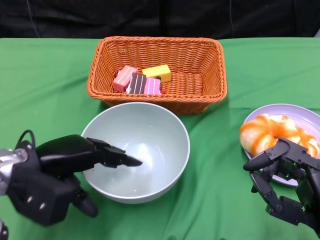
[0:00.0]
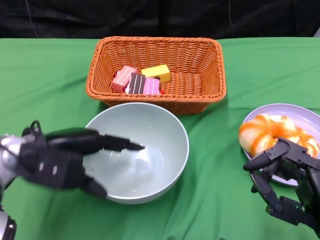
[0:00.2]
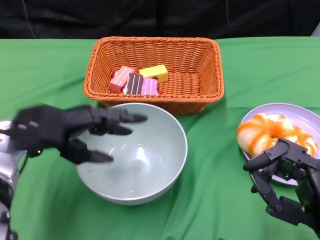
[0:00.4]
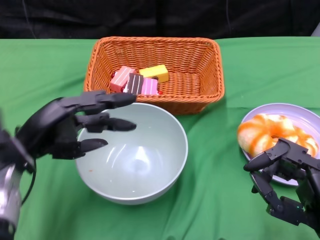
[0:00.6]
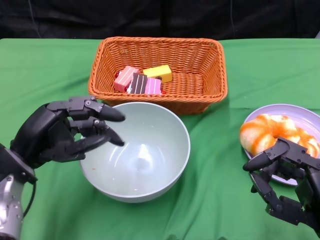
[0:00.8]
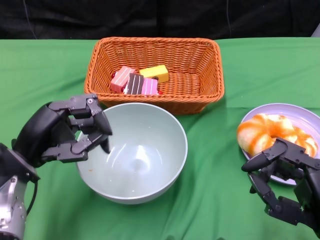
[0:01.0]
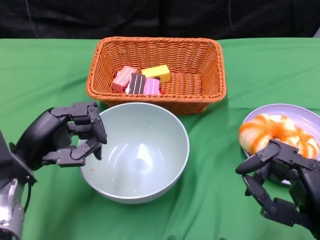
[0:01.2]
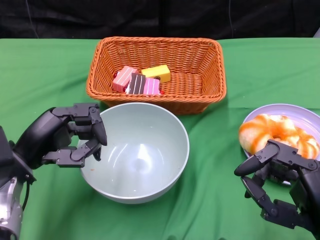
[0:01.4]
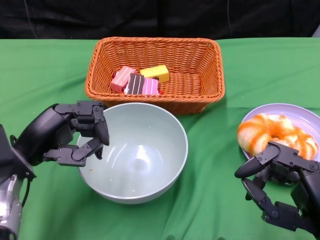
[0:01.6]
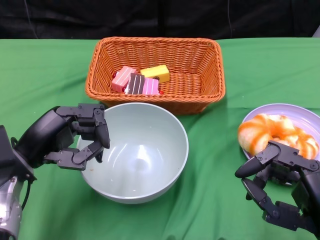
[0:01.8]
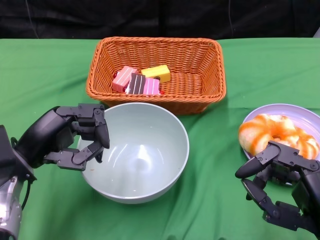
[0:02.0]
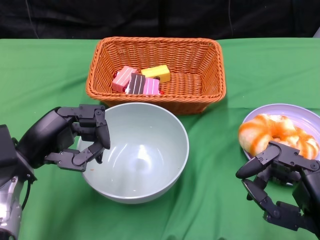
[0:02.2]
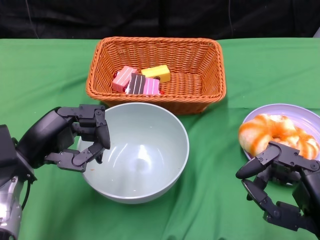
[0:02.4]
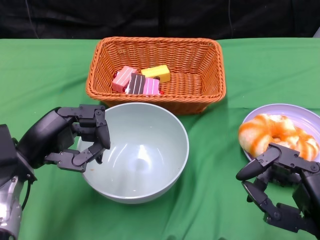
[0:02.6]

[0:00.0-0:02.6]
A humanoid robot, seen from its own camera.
0:01.2 to 0:02.6: There are only small adjustments of the hands.

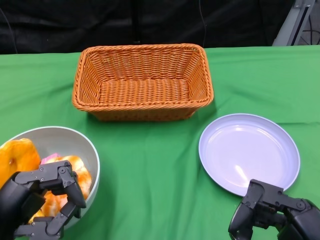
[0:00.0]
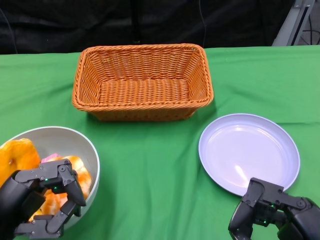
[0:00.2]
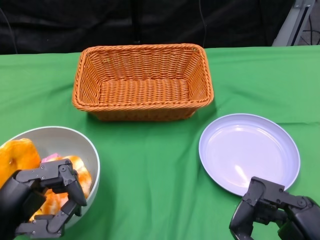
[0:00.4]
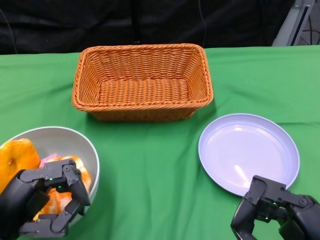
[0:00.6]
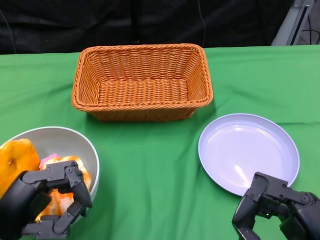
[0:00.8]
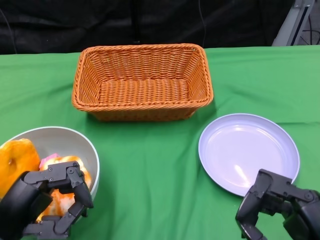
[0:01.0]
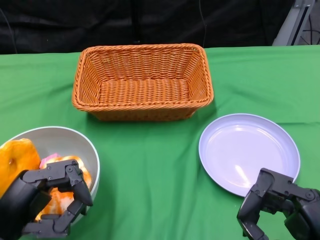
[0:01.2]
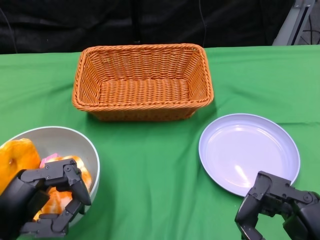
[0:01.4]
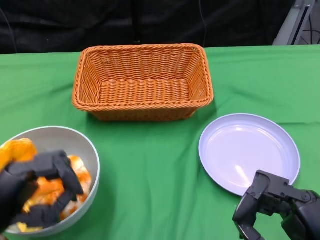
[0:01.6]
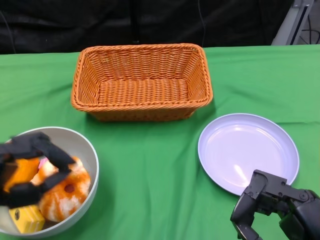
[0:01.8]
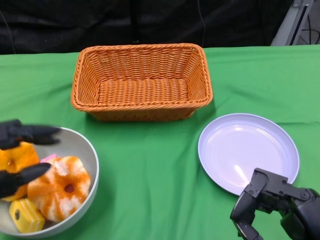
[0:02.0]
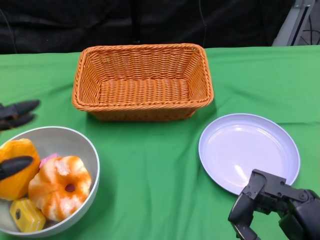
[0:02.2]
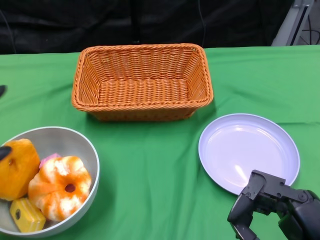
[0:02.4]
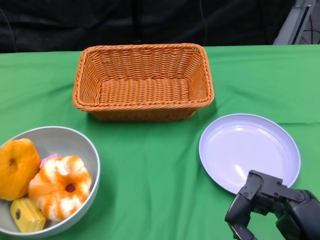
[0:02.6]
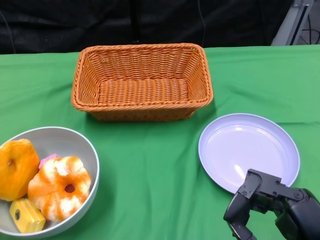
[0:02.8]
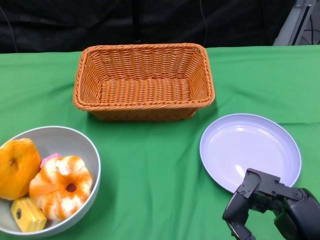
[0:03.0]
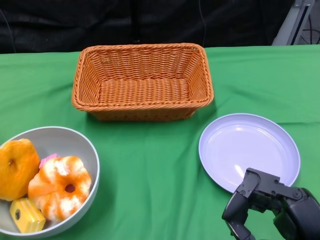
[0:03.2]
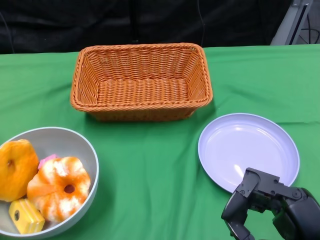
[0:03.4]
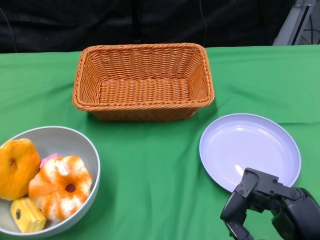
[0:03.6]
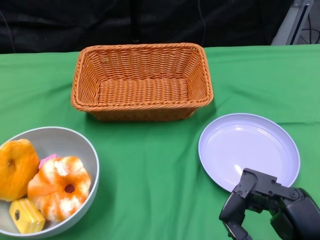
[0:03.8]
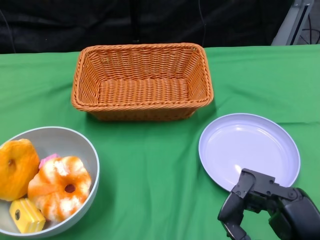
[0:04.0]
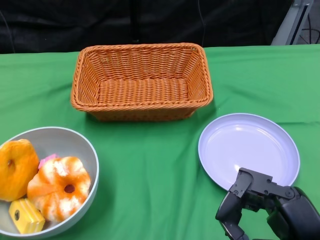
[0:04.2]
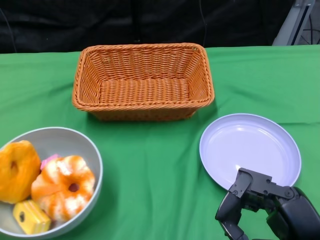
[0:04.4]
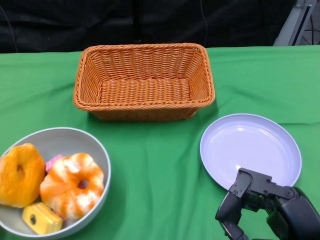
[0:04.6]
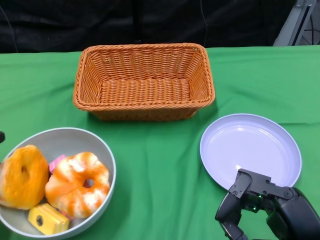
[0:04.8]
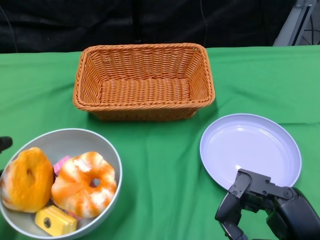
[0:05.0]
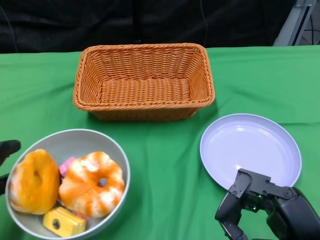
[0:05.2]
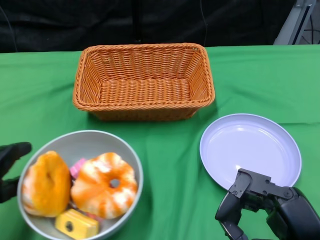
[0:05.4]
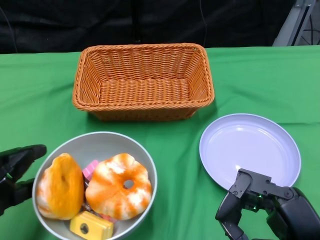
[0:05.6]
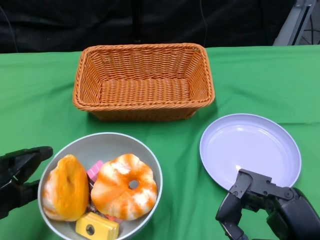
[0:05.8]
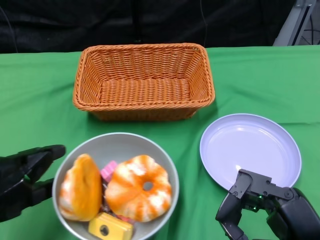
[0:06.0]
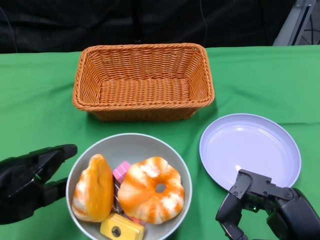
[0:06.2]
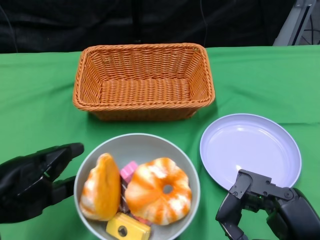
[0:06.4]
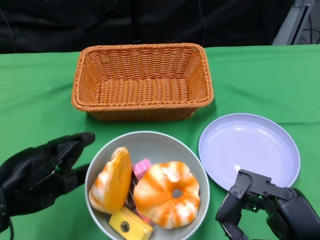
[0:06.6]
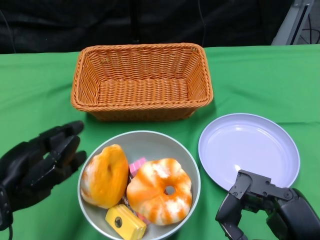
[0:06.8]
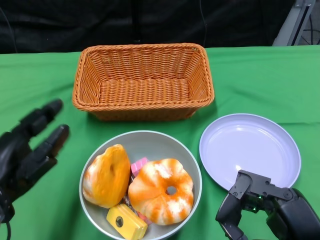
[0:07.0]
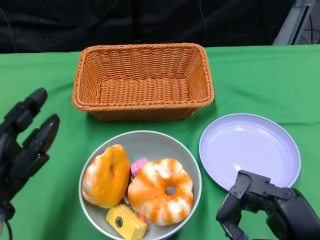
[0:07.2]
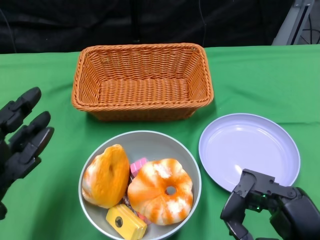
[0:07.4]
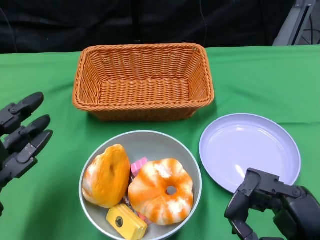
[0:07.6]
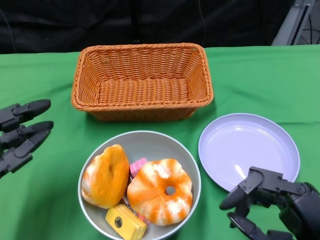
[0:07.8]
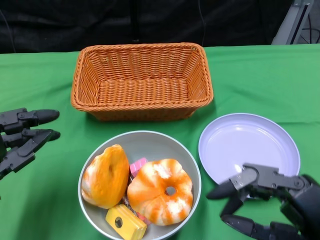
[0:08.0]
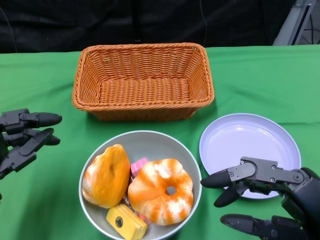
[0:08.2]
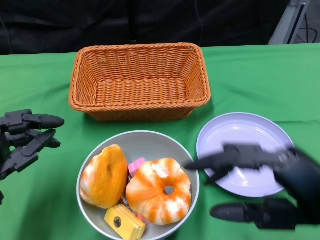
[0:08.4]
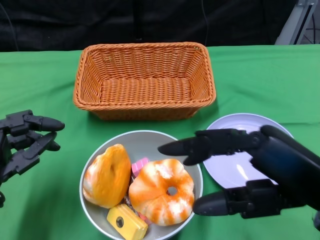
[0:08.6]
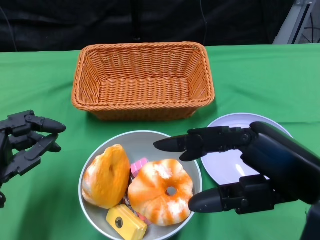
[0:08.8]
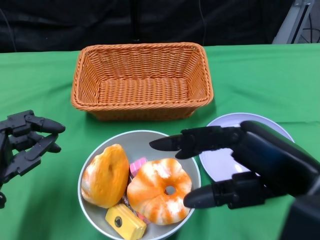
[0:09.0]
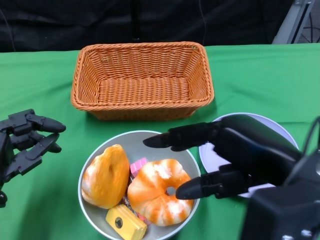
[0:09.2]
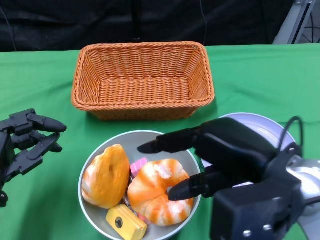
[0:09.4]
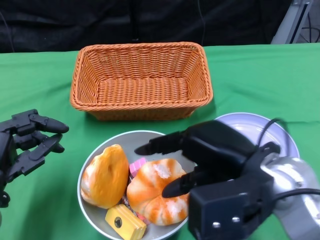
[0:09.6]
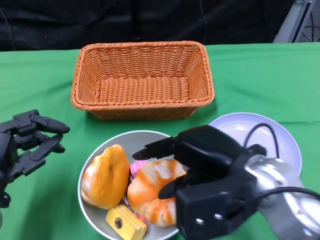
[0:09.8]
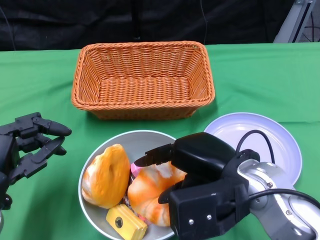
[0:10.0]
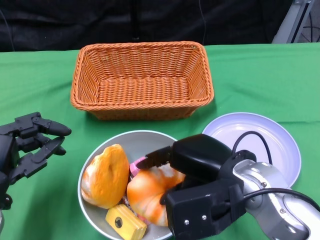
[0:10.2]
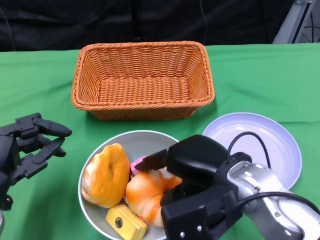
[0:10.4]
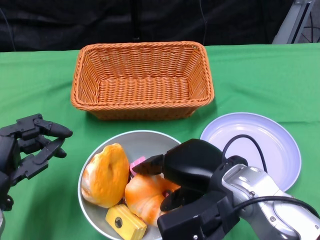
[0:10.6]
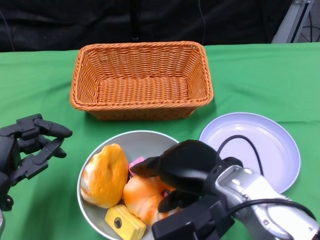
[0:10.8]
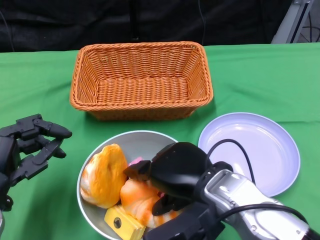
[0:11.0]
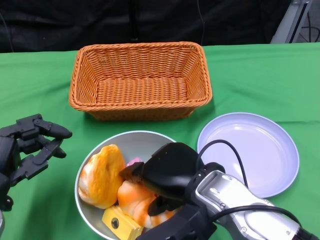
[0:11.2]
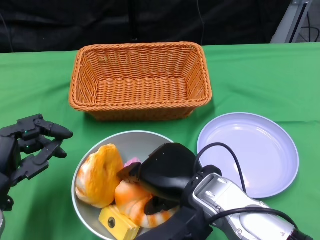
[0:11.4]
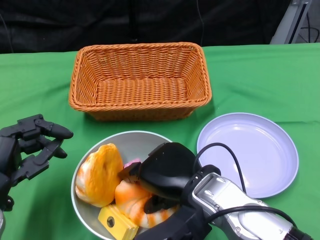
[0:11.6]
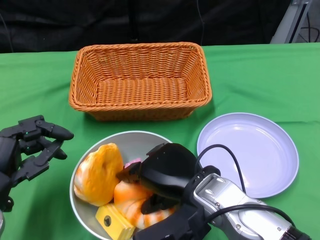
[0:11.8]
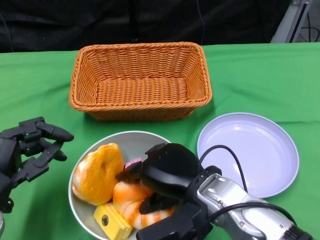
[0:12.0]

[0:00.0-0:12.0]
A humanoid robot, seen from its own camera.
Step, 0:00.0 to 0:07.2: Push the bowl to the center of the table using the left gripper.
0:01.6 to 0:03.0: The left hand travels to the left by about 10 cm.
0:04.4 to 0:06.0: The left hand heads to the right, covering about 5 cm.
0:07.6 to 0:09.0: The right hand moves upward, approximately 10 cm.
0:09.0 to 0:10.4: The right hand goes roughly 15 cm downward, to the left and forward.
0:10.4 to 0:12.0: The right hand moves some 5 cm.

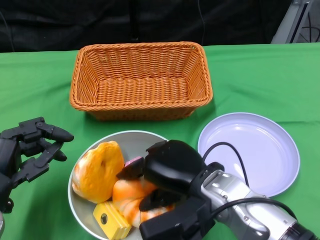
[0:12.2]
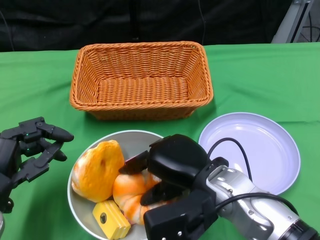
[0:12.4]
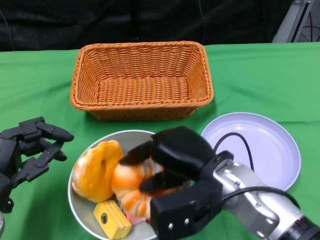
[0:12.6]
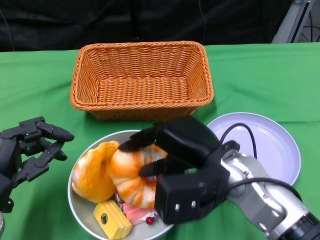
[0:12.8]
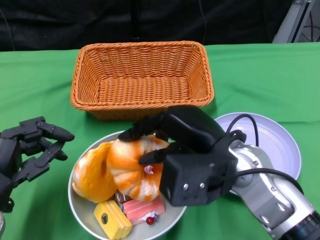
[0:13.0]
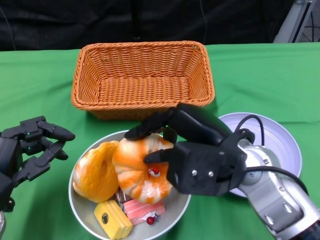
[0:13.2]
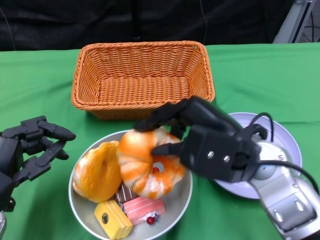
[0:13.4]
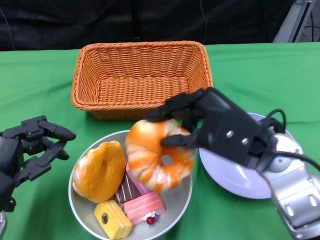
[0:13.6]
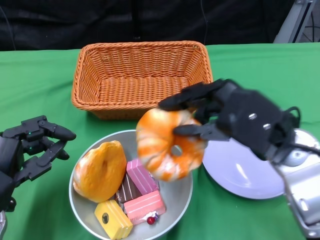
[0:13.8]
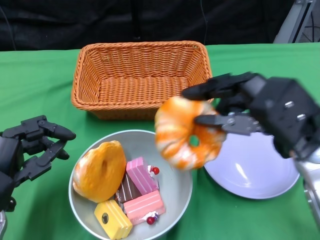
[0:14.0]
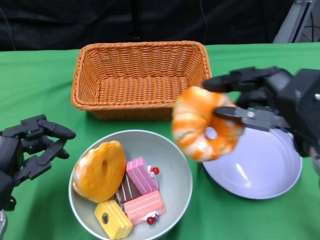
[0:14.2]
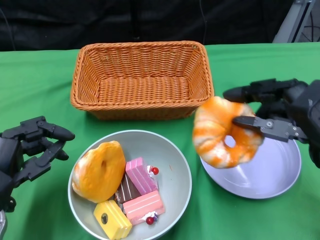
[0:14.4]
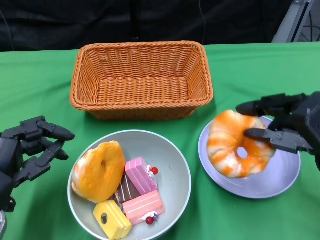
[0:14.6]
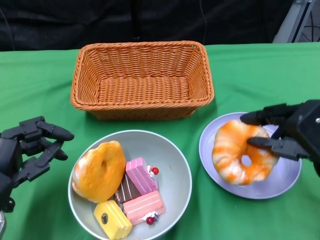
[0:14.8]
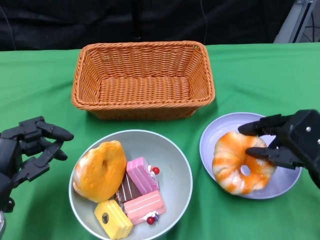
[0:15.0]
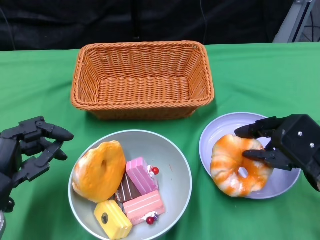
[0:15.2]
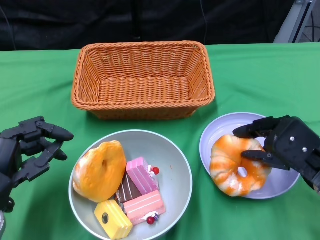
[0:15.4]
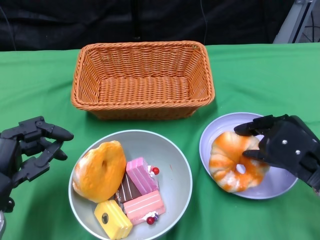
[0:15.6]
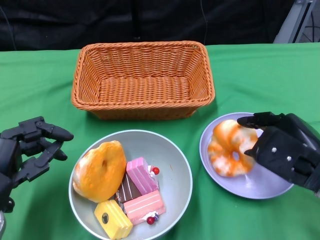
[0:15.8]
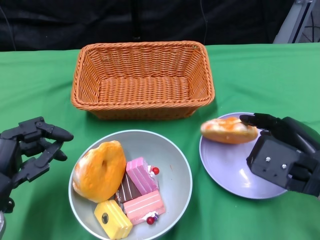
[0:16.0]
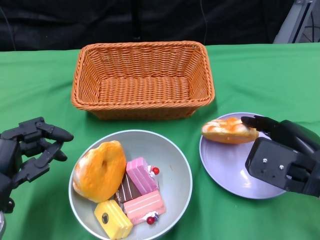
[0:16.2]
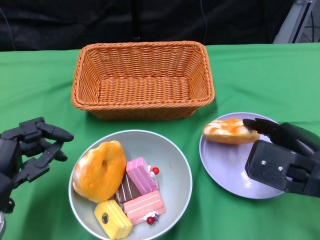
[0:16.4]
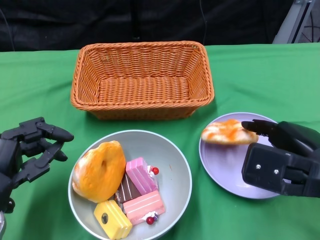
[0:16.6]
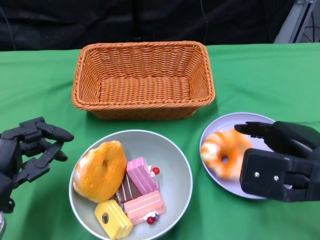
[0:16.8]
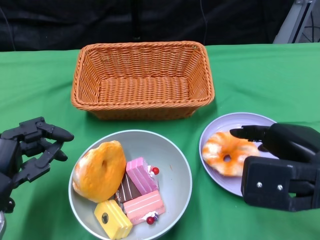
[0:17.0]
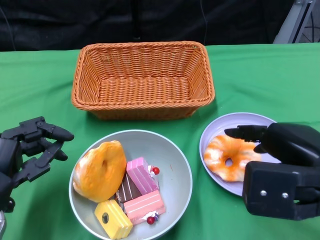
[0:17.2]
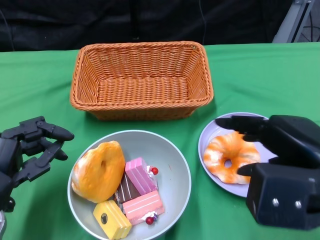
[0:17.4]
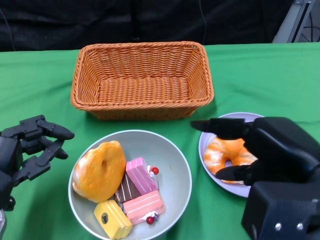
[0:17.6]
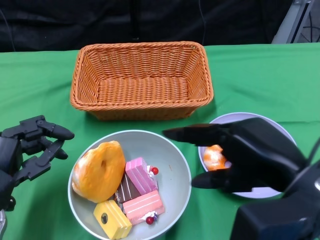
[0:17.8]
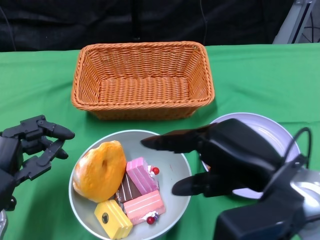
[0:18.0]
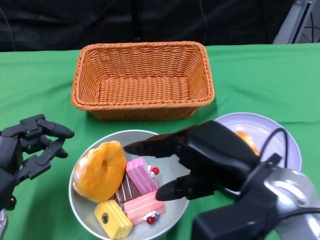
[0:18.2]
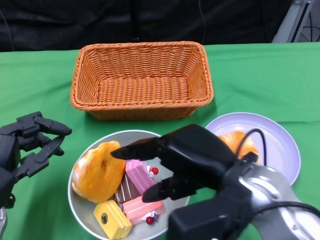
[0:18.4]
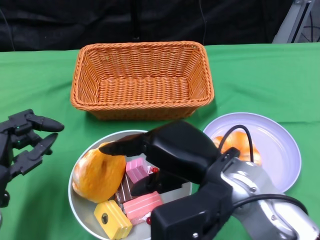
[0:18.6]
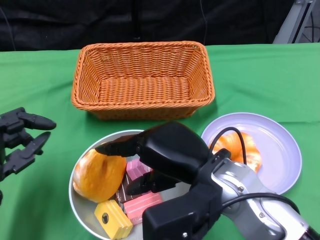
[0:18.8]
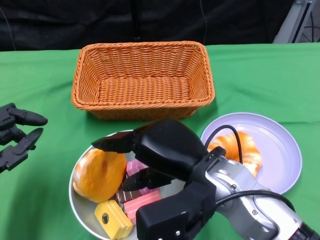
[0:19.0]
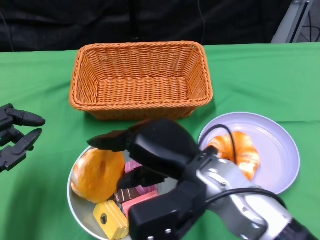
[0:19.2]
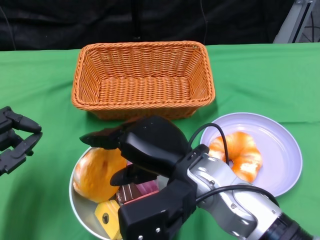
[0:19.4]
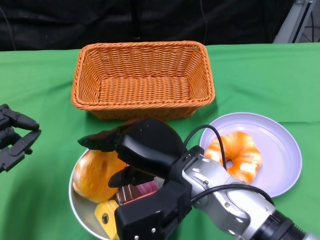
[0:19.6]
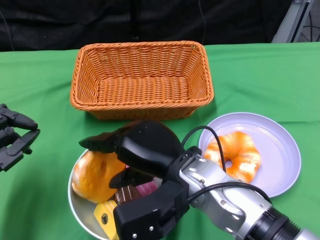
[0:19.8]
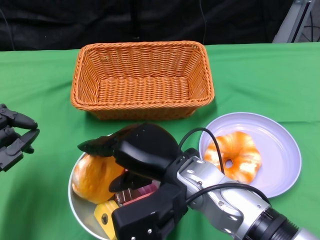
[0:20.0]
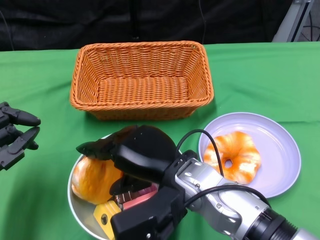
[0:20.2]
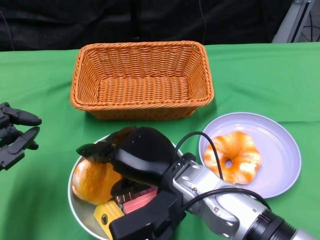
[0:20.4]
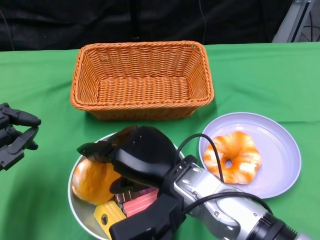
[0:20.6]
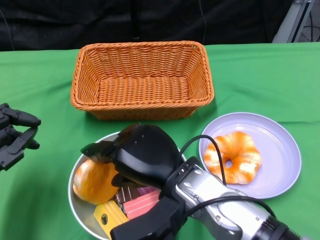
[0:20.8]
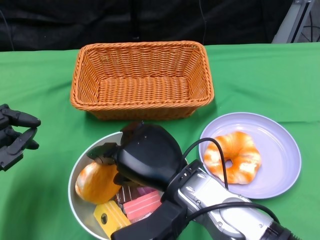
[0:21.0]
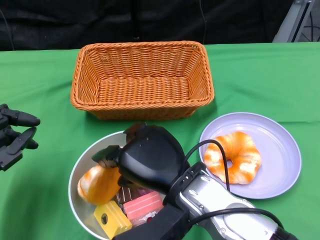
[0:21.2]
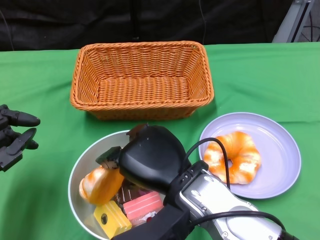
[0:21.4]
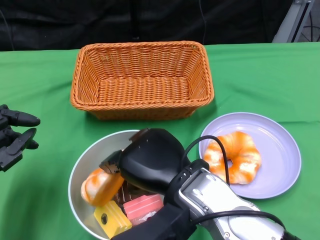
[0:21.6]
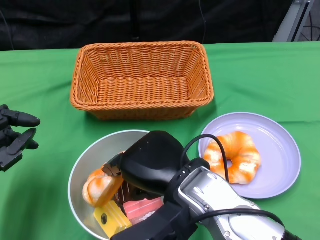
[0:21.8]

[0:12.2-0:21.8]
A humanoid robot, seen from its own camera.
0:12.2 to 0:13.8: The right hand moves to the right and upward, some 10 cm.
0:13.8 to 0:15.4: The right hand heads to the right and downward, covering about 10 cm.
0:15.4 to 0:17.0: The right hand shifts approximately 5 cm upward.
0:17.0 to 0:18.6: The right hand is displaced to the left by about 10 cm.
0:18.6 to 0:20.2: The right hand moves to the left, roughly 5 cm.
0:20.2 to 0:21.8: There are only small adjustments of the hands.
